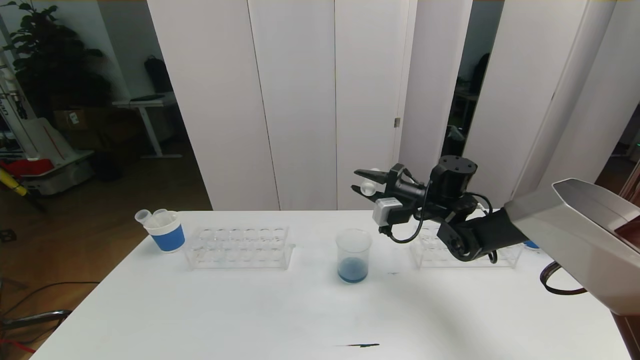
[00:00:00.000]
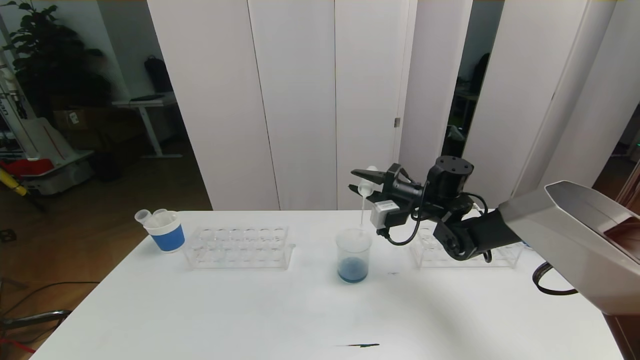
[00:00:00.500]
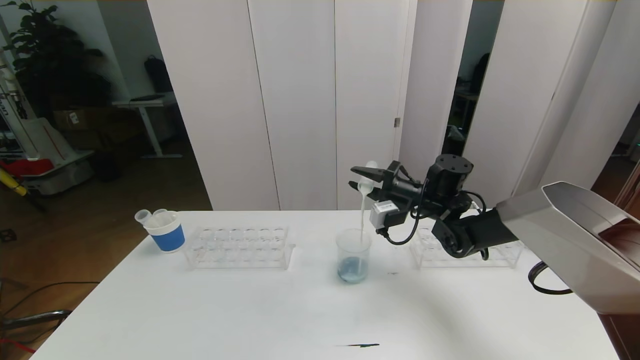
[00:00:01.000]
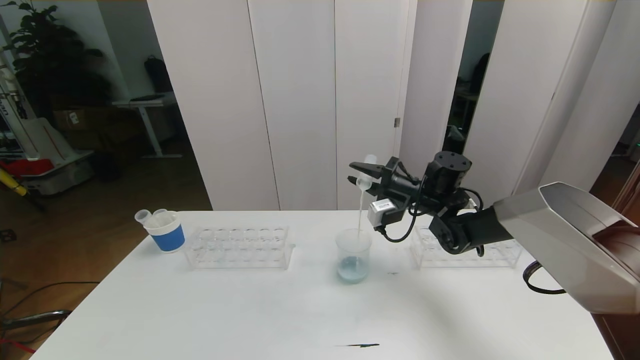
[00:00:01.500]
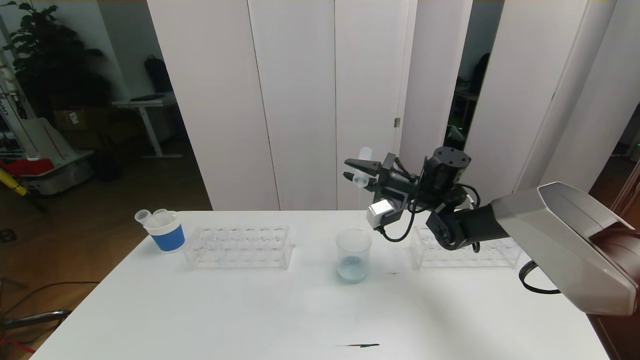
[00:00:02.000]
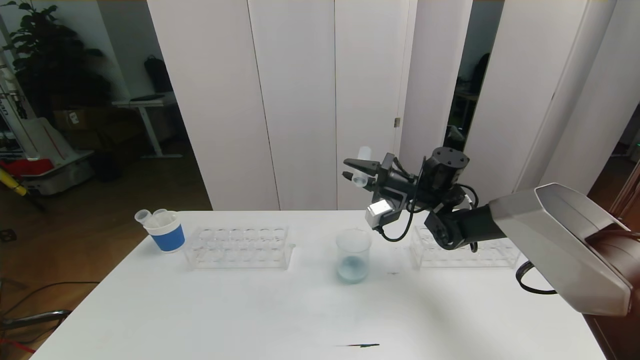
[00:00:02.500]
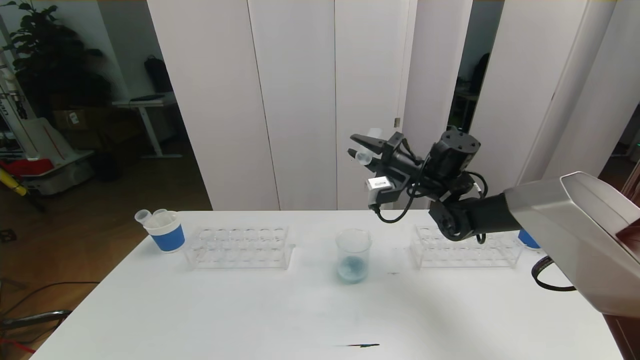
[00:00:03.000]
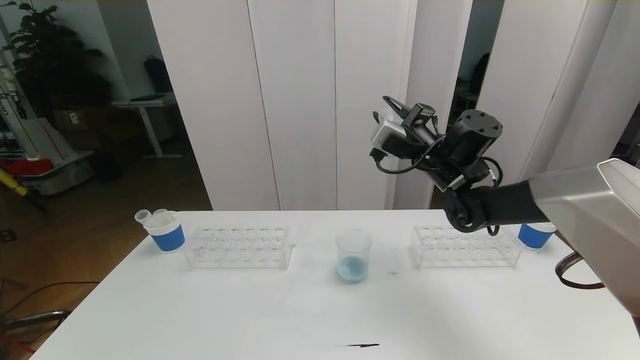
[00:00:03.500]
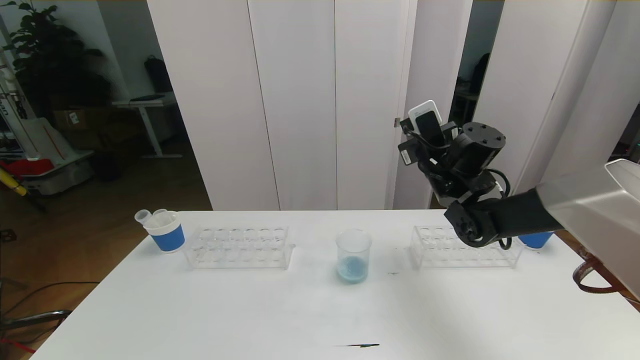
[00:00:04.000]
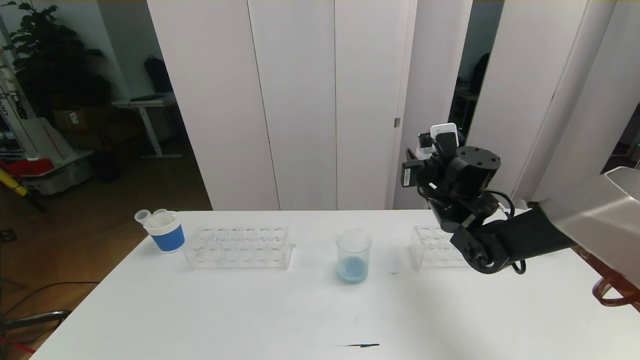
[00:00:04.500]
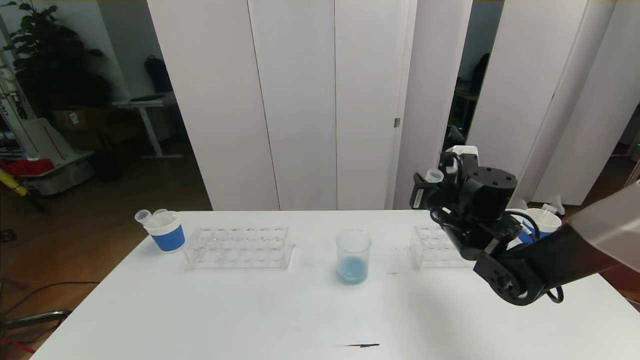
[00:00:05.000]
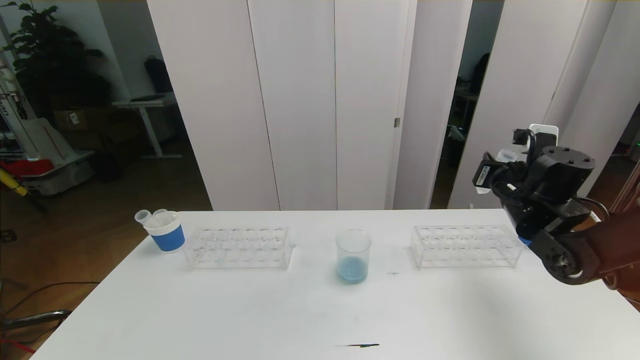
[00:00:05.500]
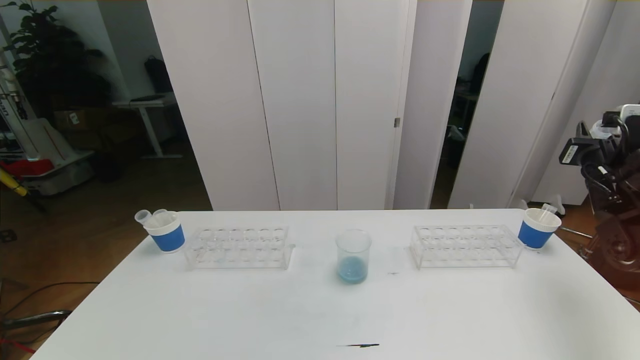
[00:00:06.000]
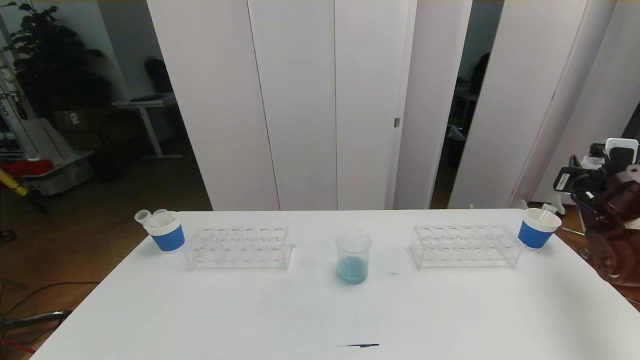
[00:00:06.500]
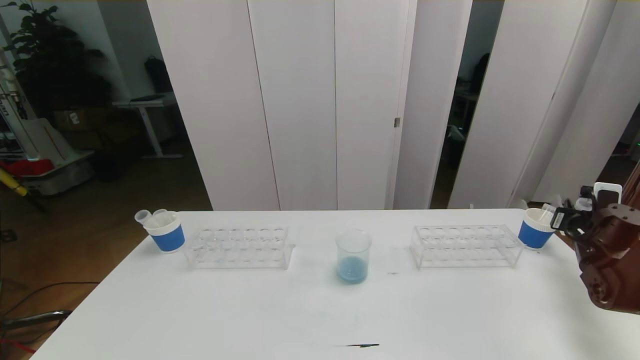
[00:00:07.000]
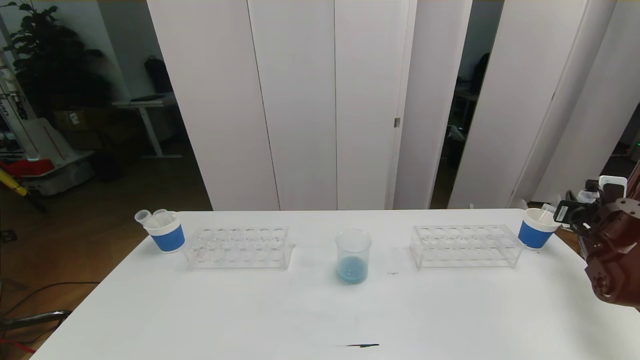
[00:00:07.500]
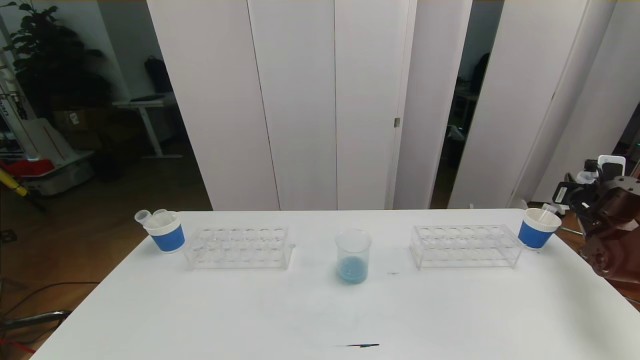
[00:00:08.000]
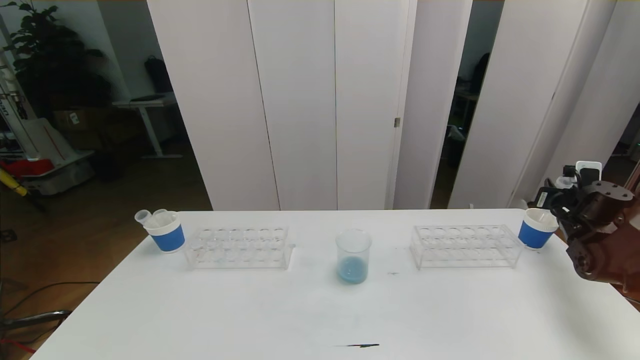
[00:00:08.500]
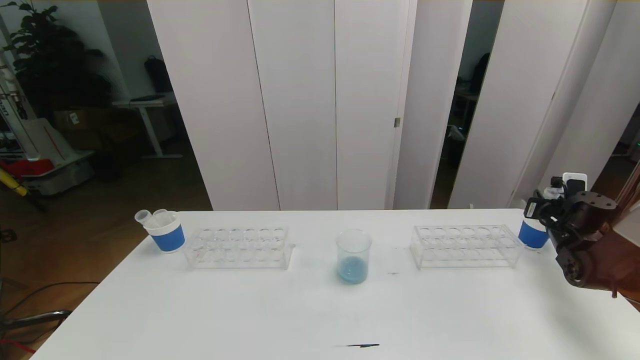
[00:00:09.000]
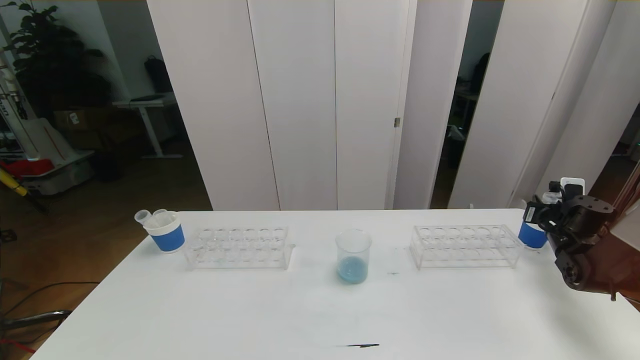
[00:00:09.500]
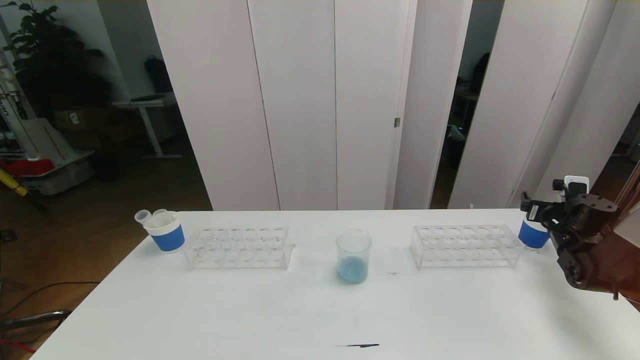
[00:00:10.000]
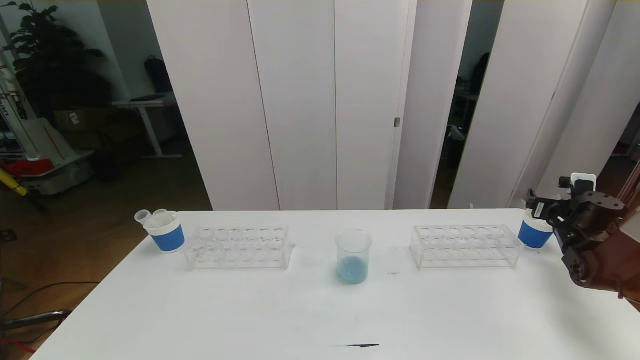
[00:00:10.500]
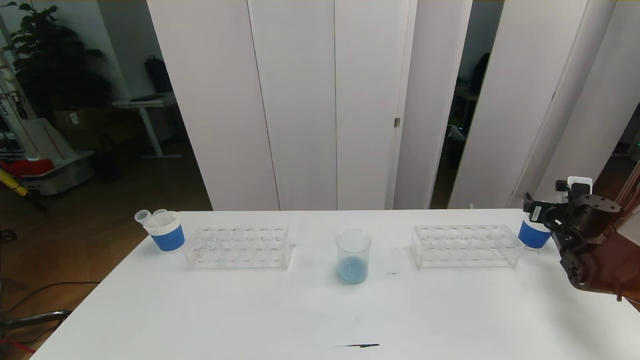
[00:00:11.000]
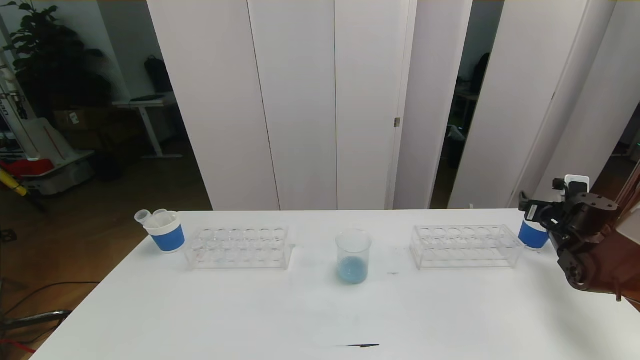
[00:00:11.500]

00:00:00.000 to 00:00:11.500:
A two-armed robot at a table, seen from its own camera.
Task of the whole recording: pick up the test tube with red pigment the test tube with blue pigment and the test tube with white pigment by grippers and pour them into the beaker.
00:00:02.000 to 00:00:04.000: The right gripper travels upward by approximately 5 cm.
00:00:04.000 to 00:00:06.000: The right gripper heads to the right, covering some 25 cm.
00:00:06.000 to 00:00:07.500: The right gripper travels downward and to the right by approximately 15 cm.
00:00:07.500 to 00:00:09.500: The right gripper moves roughly 5 cm.
00:00:09.500 to 00:00:11.500: The right gripper opens its fingers.

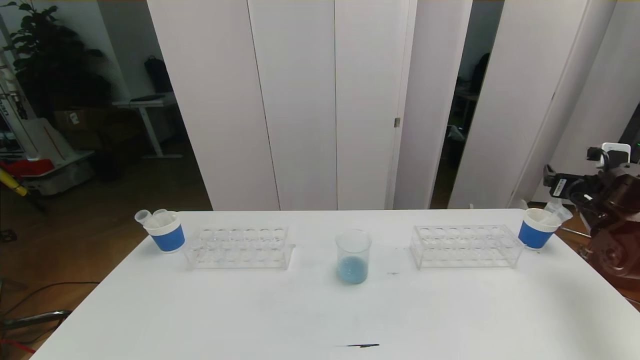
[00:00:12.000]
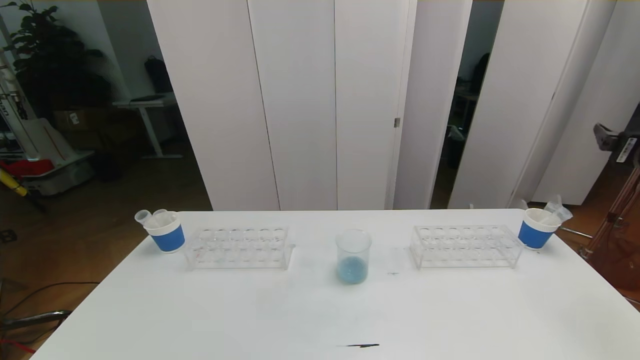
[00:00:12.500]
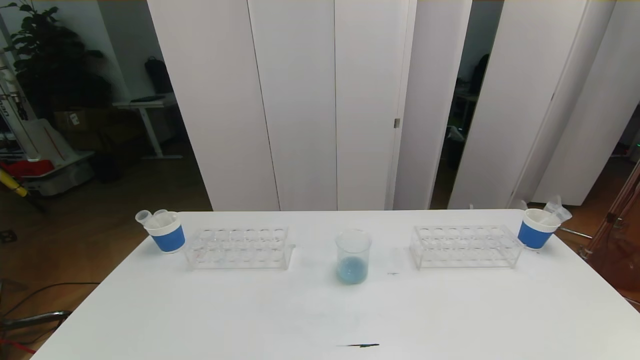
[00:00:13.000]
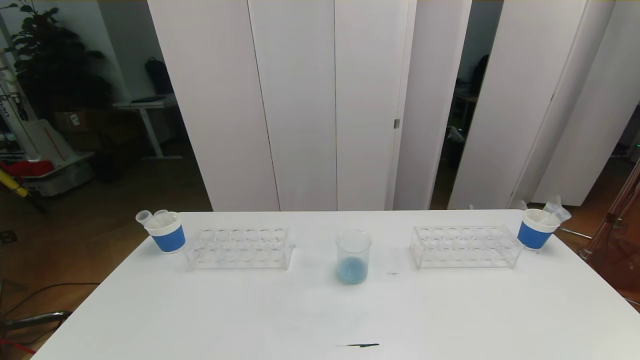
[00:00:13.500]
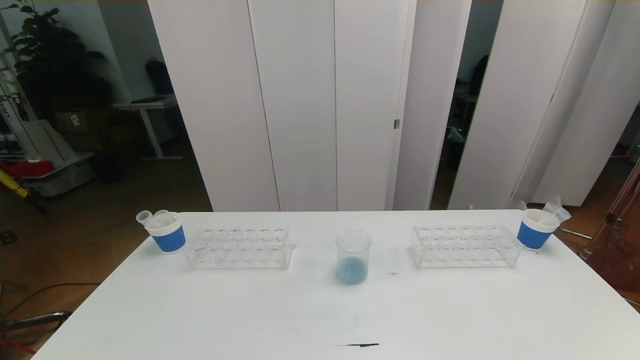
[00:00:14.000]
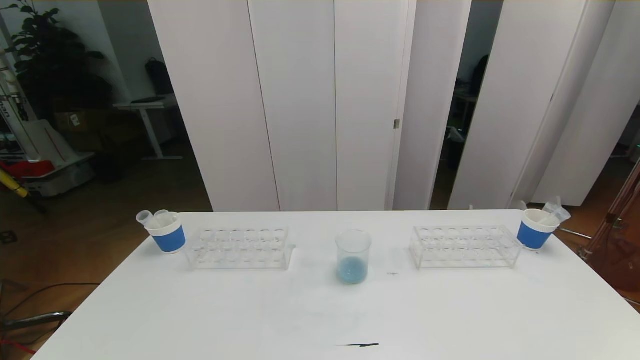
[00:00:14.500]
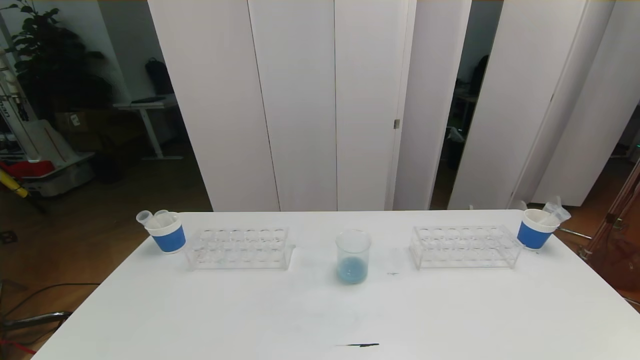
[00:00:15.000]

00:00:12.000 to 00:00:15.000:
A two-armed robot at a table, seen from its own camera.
Task of the whole recording: pick up the test tube with red pigment the test tube with blue pigment and the test tube with white pigment by grippers and pour them into the beaker.
00:00:12.000 to 00:00:13.500: The right gripper heads backward, covering about 35 cm.
